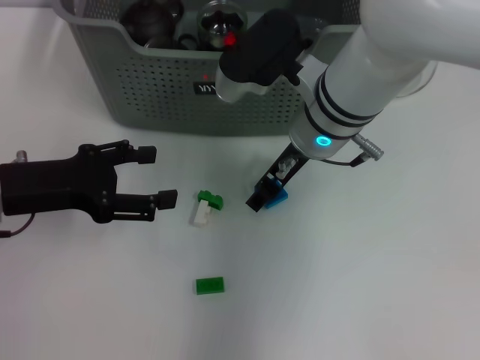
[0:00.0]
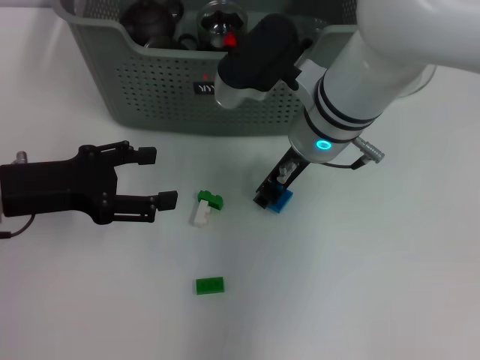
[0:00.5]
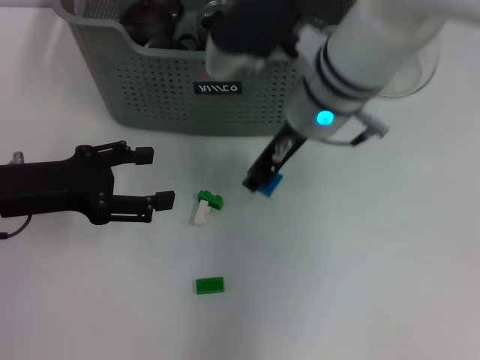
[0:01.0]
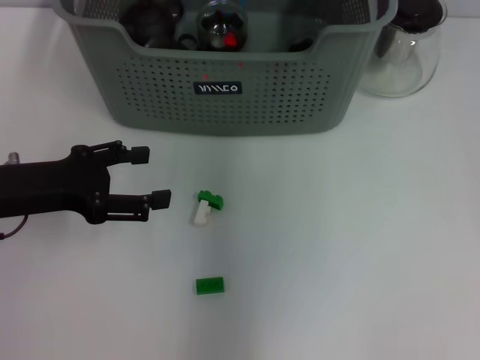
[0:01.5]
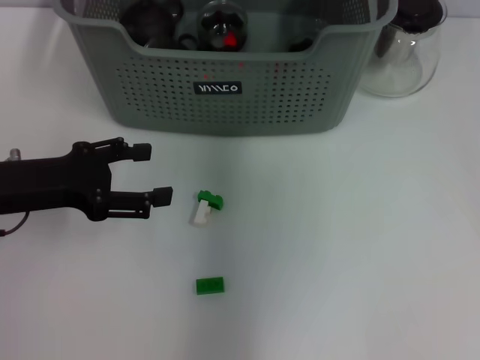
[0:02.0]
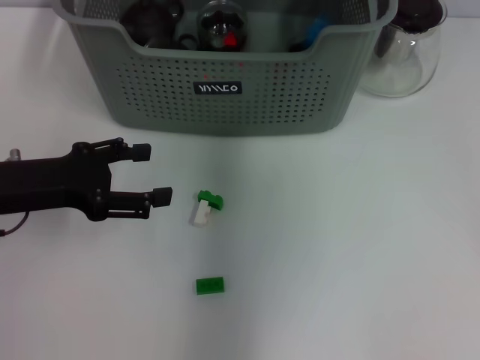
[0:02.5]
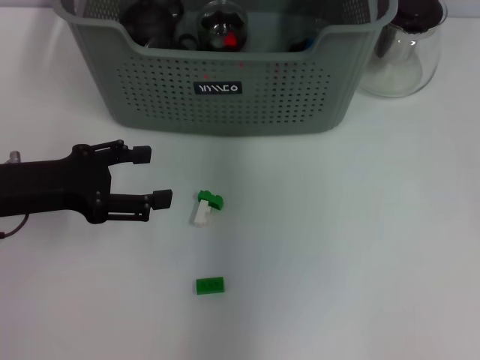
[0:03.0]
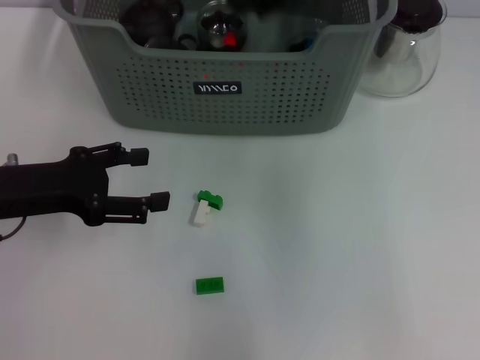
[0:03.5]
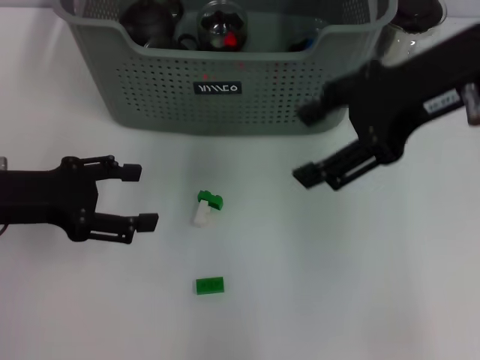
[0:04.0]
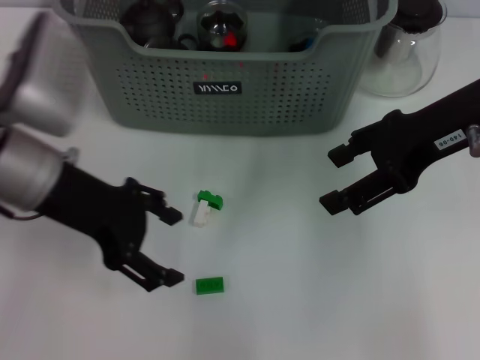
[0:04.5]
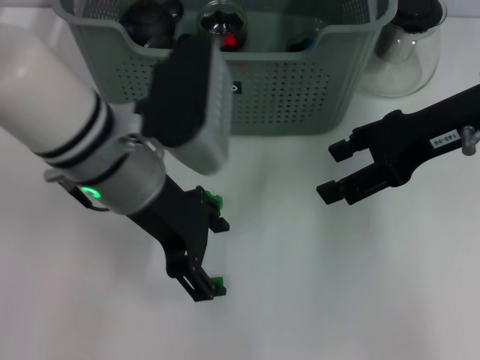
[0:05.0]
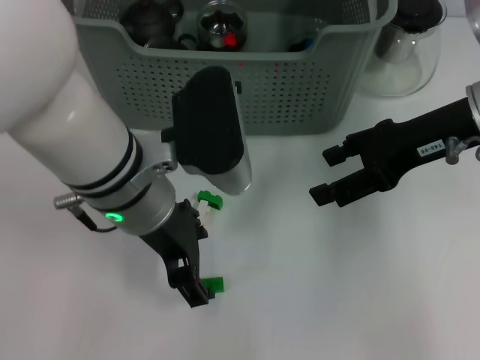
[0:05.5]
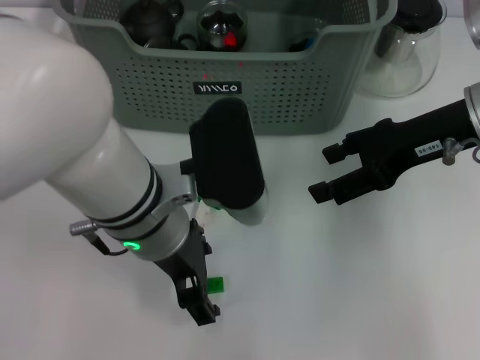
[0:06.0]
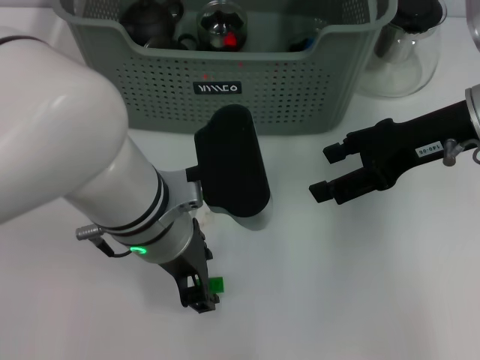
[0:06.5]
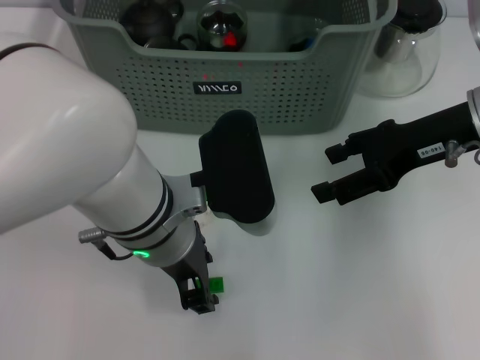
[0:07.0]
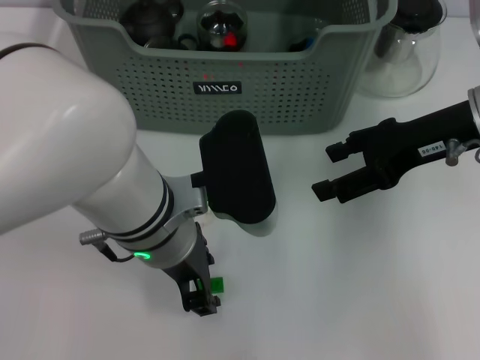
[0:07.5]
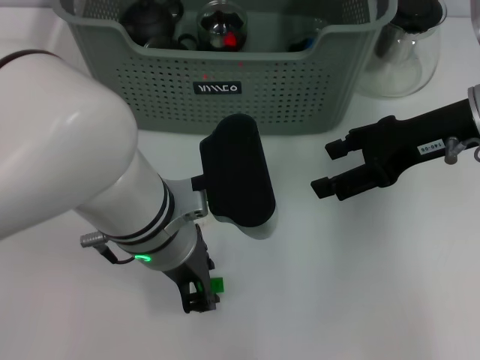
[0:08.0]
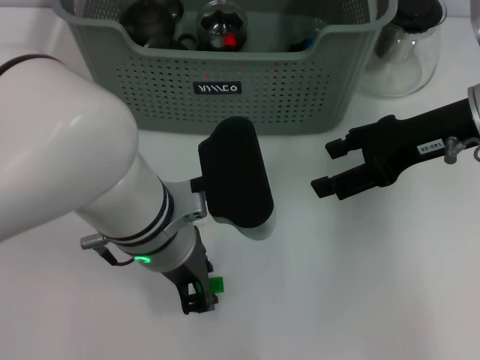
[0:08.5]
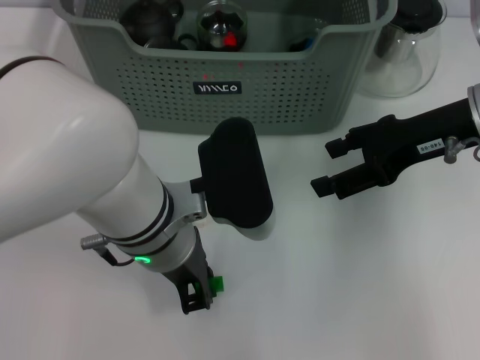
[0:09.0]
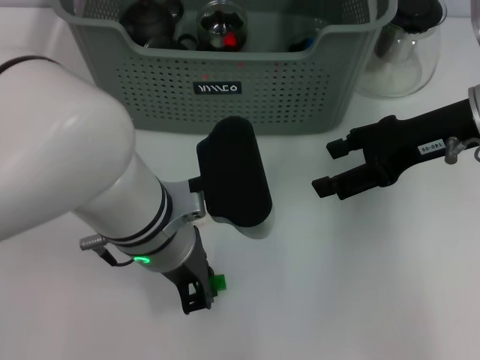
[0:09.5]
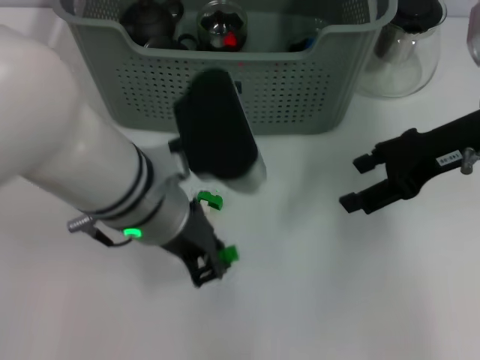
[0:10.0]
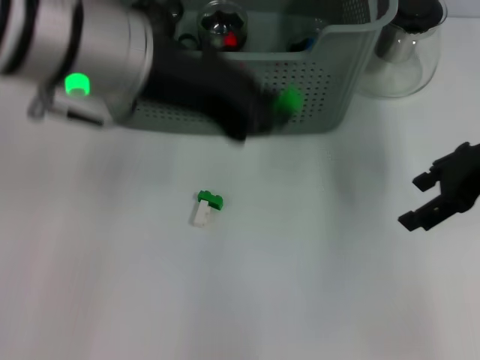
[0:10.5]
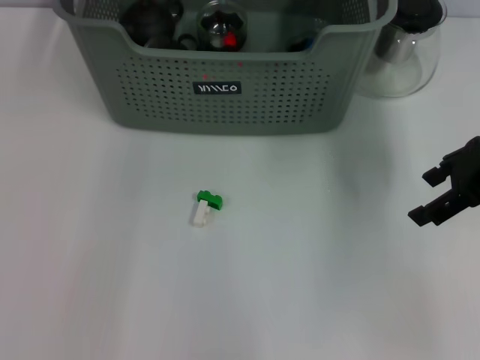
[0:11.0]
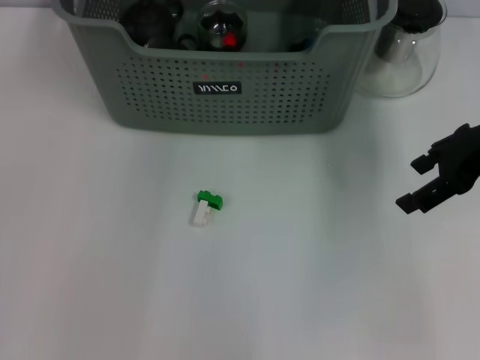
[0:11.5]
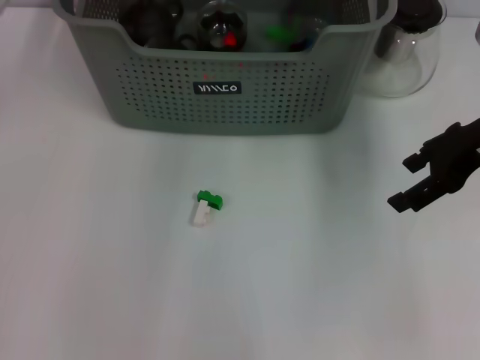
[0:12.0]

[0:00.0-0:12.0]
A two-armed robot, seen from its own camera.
Task of the whole recording: pick up the teacup on the table and place it into the storage bin, pick up the block on the table and place it into the storage bin.
Step, 0:01.0 to 0:02.5: Place the dark blue block in the storage box with right gripper.
Step, 0:03.0 to 0:09.0: Grasp the green block with left gripper.
Step, 0:09.5 to 0:12.0: Place the green block in the storage box with left gripper.
0:00.0 to 0:02.0: The right gripper shifts about 20 cm upward and forward, and closes.
0:02.0 to 0:04.0: The right gripper goes roughly 15 cm backward and to the right, and opens its fingers.
0:04.0 to 0:06.0: The right gripper heads downward, covering approximately 10 cm; the left gripper goes approximately 20 cm to the right.
0:06.0 to 0:08.0: The left gripper closes.
0:08.0 to 0:10.0: The left gripper closes its fingers.
0:10.0 to 0:12.0: The left gripper moves forward, about 20 cm.

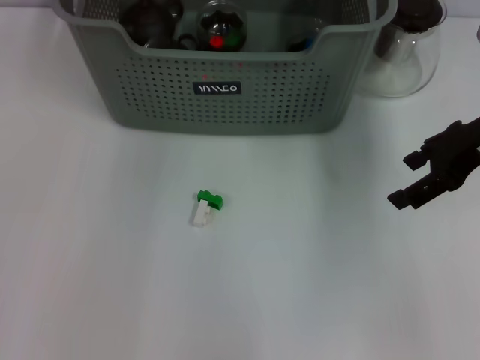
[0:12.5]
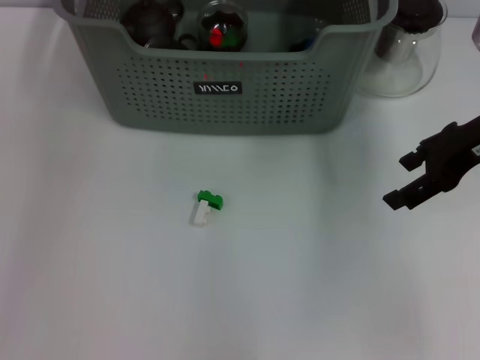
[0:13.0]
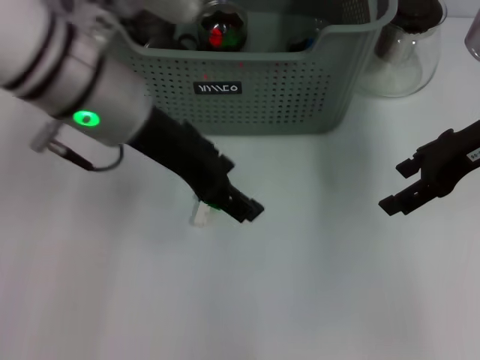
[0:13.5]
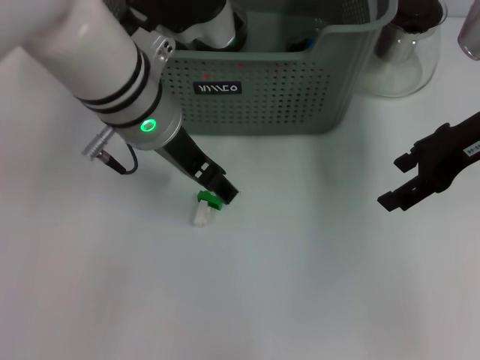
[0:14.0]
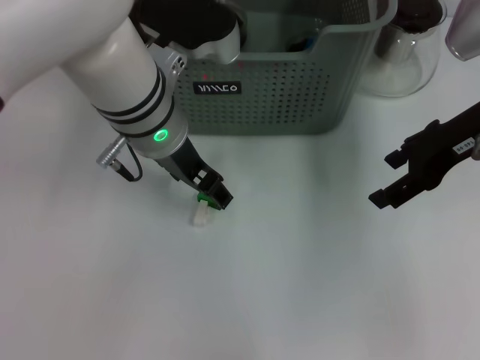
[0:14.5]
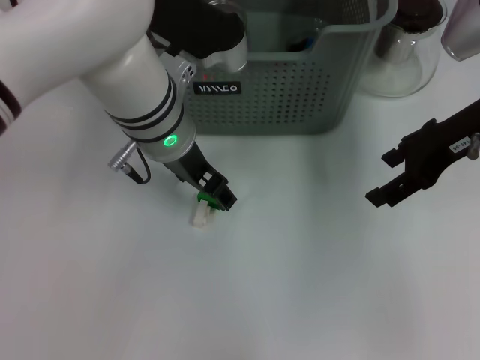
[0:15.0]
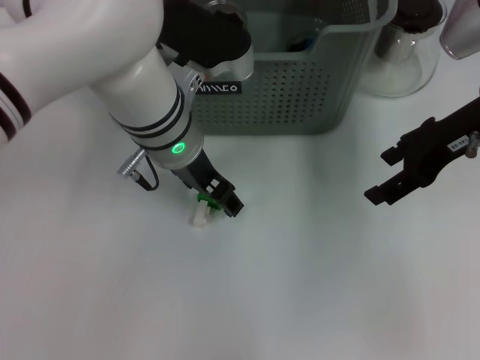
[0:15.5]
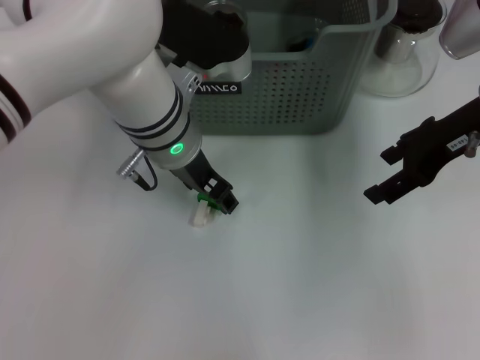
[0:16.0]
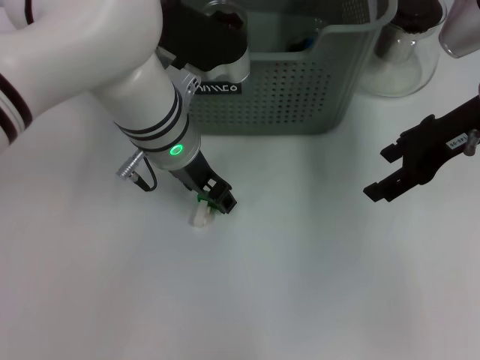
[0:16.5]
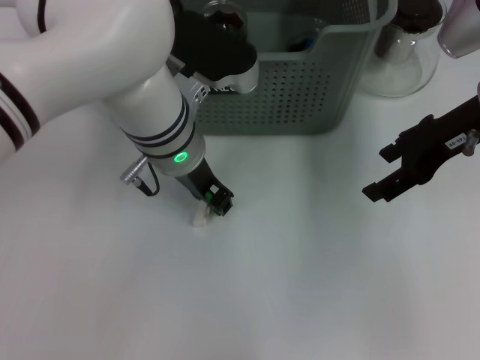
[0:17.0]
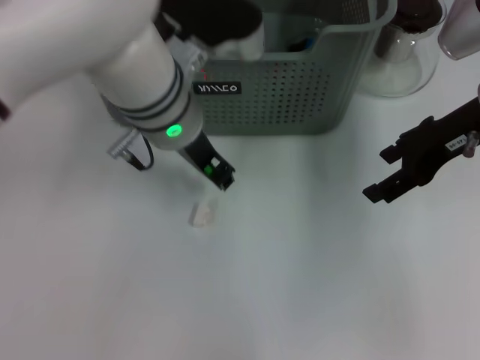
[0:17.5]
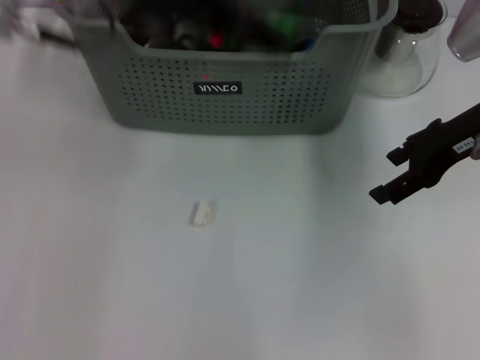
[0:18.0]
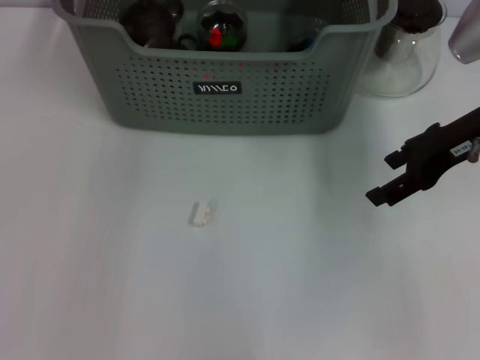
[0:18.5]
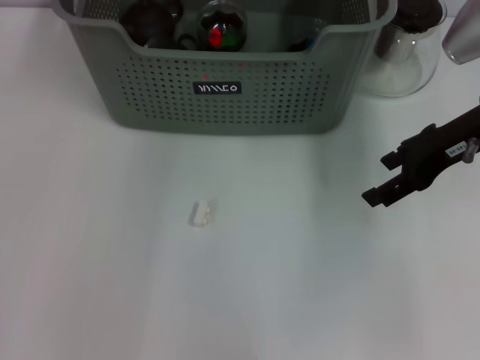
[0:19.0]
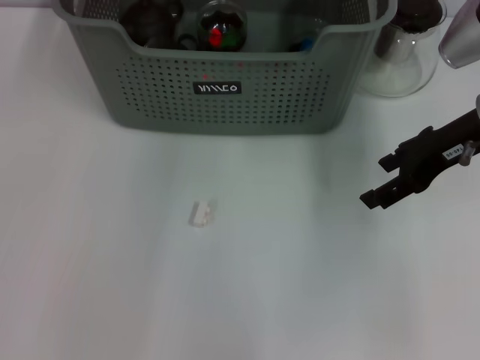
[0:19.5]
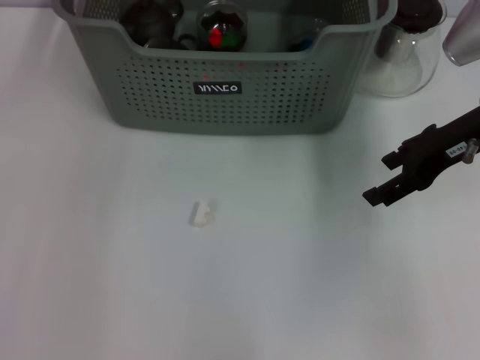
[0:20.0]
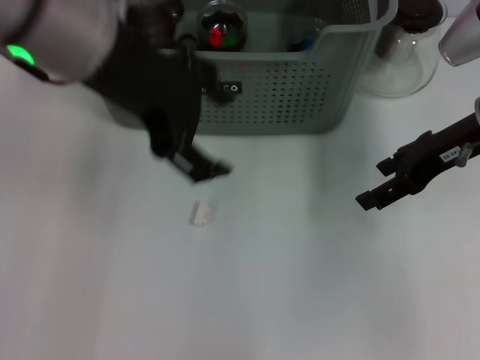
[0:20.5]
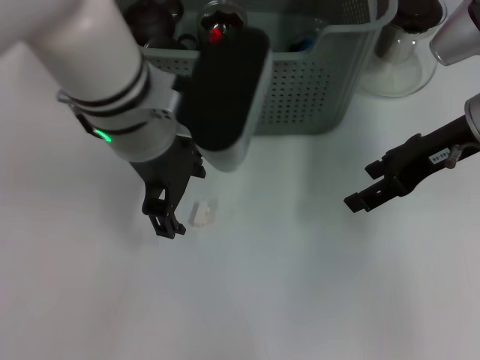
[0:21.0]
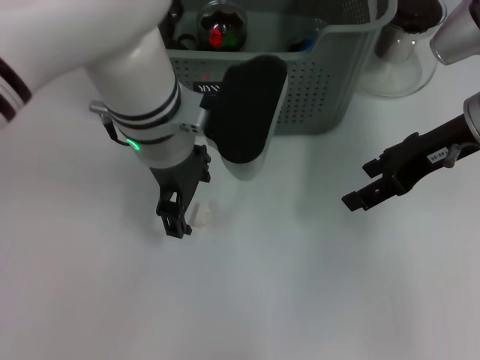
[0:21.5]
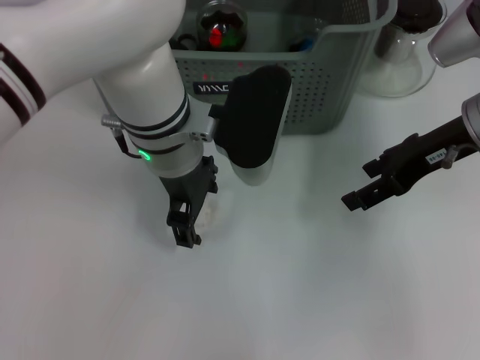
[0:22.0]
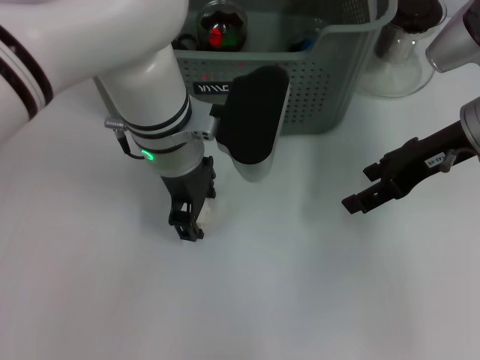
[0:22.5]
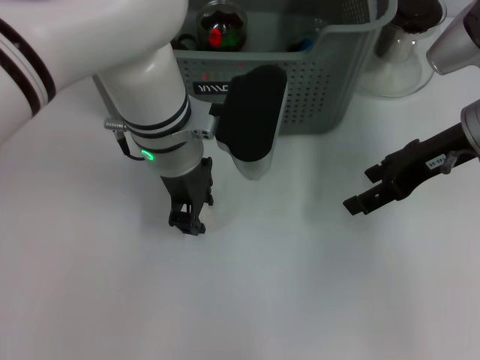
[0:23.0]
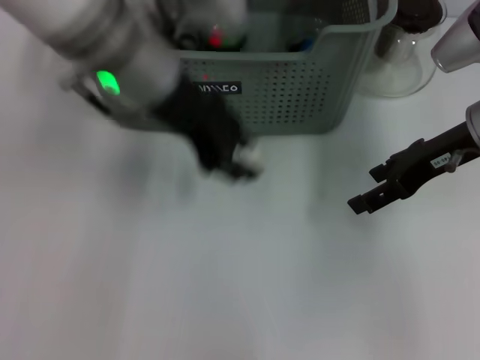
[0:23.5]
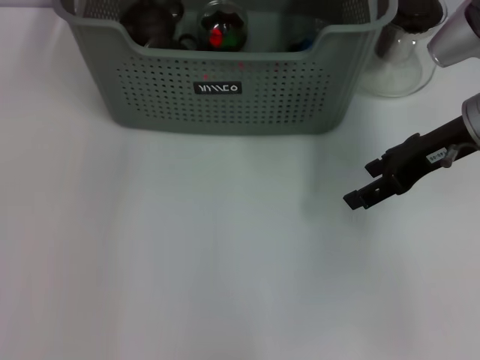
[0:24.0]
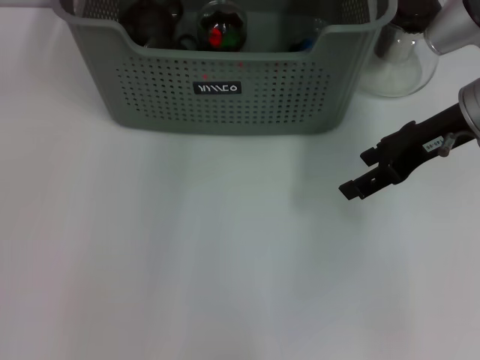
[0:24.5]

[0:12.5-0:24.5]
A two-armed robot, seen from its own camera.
Task of the whole recording: pick up the teacup on the table and place it into the storage bin, pick up the block on the table and place it into the storage bin.
Step, 0:12.5 to 0:16.5: Grasp the green block with left gripper.
Step, 0:17.0 to 0:19.5: Place the green block in the storage box with left gripper.
Step, 0:20.0 to 0:23.0: Grasp the white block with left gripper.
0:12.5 to 0:14.5: The left gripper shifts approximately 15 cm downward and backward.
0:14.5 to 0:16.5: The grippers stay close to where they were, moving slightly.
0:16.5 to 0:18.5: The left gripper shifts approximately 20 cm upward.
0:18.5 to 0:20.5: The left gripper moves backward and downward, roughly 10 cm, and opens its fingers.
0:20.5 to 0:22.5: The left gripper heads downward and to the right, covering about 15 cm.
0:22.5 to 0:24.5: The left gripper heads forward and upward, covering some 15 cm, and closes.

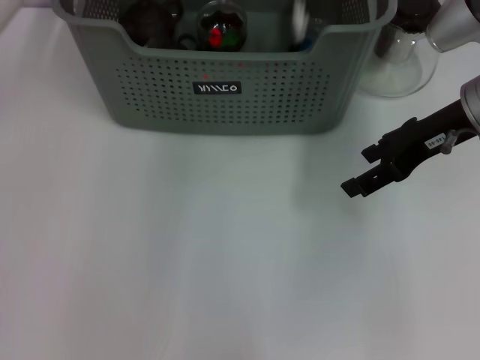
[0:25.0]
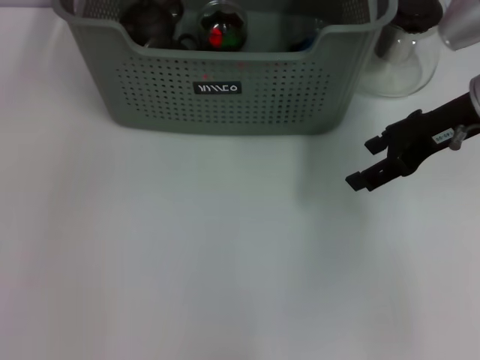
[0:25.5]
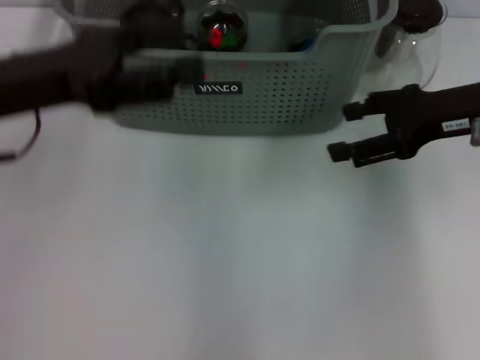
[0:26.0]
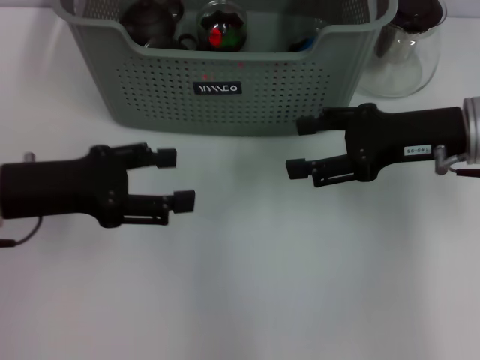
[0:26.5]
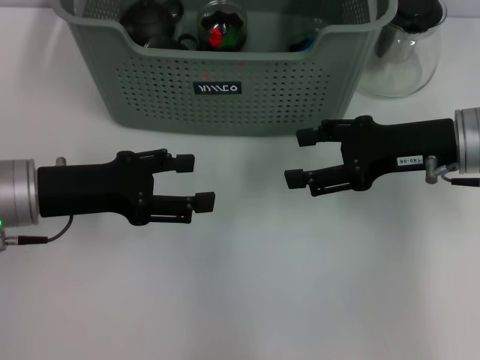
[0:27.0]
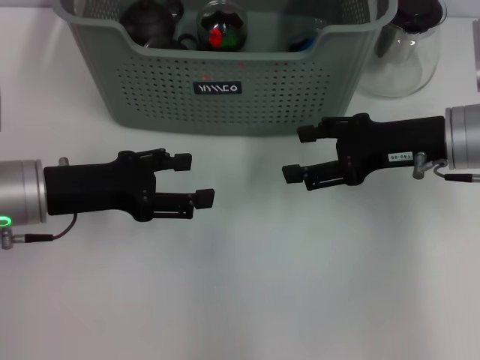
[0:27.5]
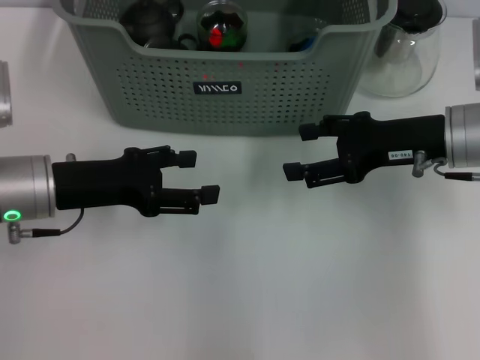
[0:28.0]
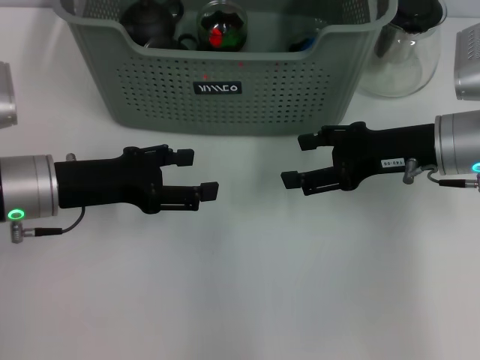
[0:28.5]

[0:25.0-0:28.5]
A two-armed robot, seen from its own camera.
Task of the whole recording: pick up the teacup on the table and place it into the storage bin, pick up the block on the table and place it into the storage bin.
0:25.0 to 0:27.0: The right gripper shifts by approximately 5 cm, while the left gripper shifts roughly 30 cm backward, to the left and downward, and opens.
0:27.0 to 0:28.5: The grippers make only small movements.
